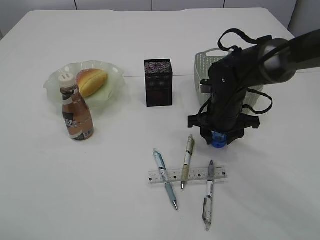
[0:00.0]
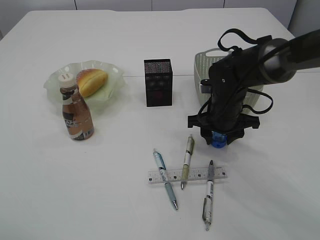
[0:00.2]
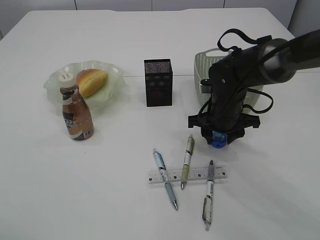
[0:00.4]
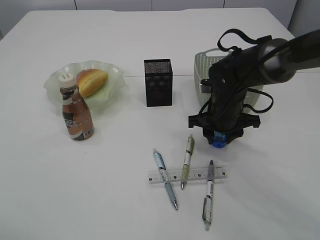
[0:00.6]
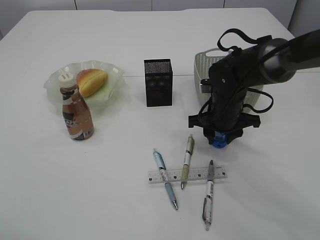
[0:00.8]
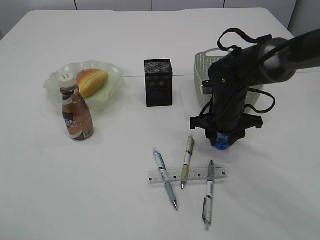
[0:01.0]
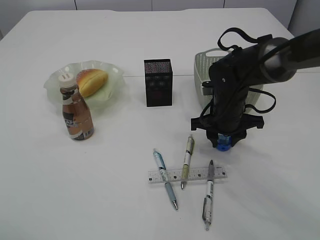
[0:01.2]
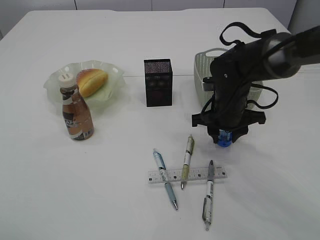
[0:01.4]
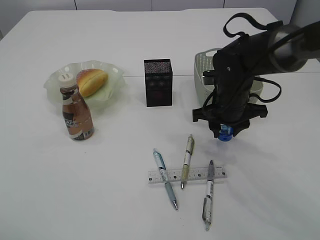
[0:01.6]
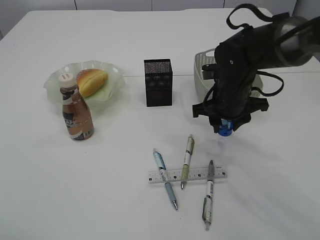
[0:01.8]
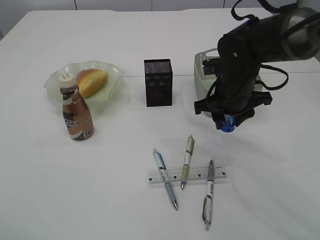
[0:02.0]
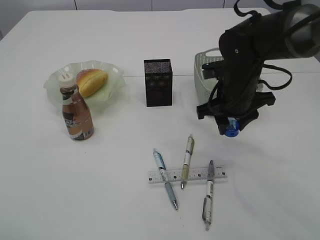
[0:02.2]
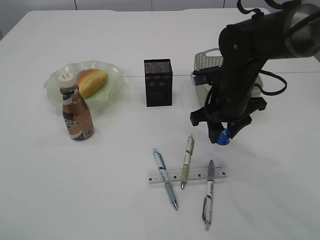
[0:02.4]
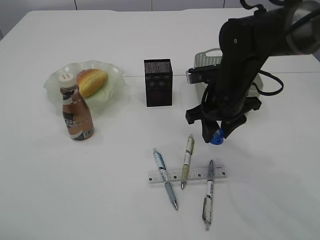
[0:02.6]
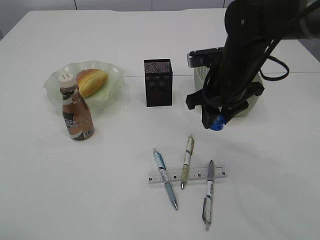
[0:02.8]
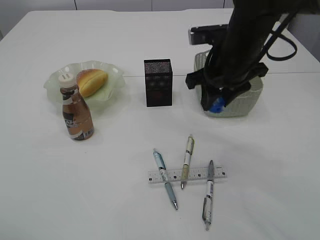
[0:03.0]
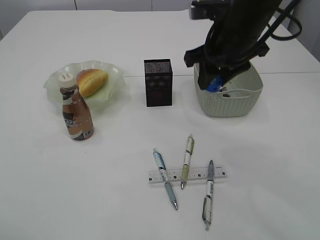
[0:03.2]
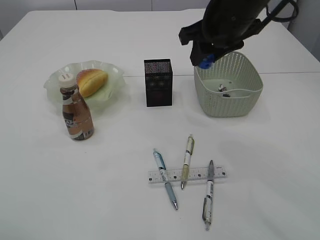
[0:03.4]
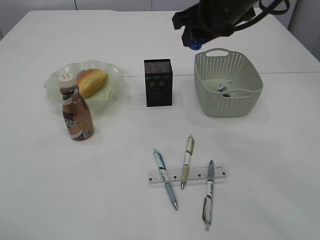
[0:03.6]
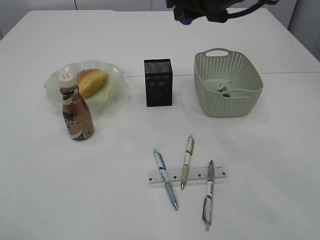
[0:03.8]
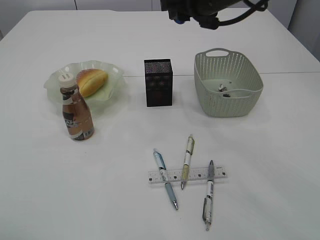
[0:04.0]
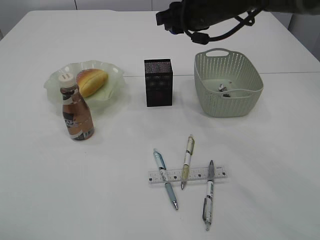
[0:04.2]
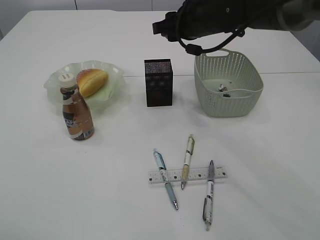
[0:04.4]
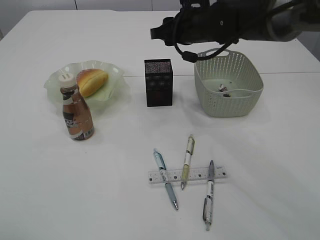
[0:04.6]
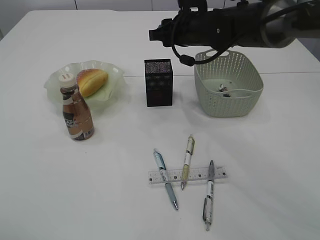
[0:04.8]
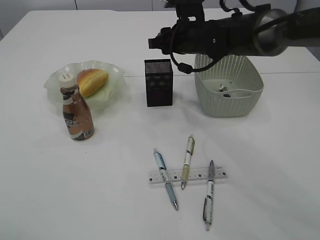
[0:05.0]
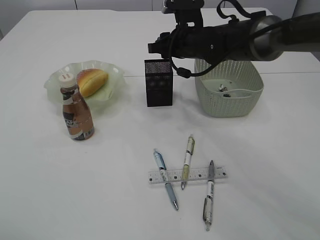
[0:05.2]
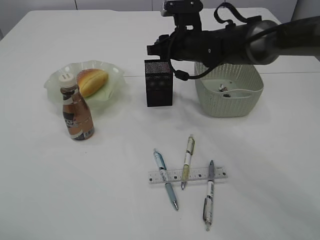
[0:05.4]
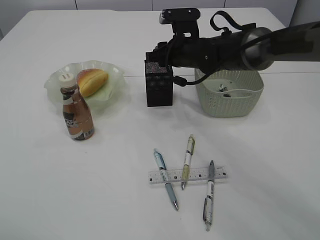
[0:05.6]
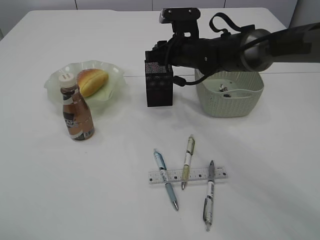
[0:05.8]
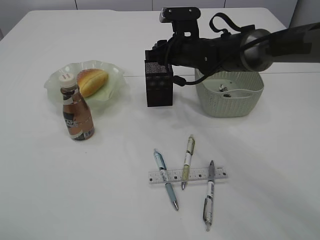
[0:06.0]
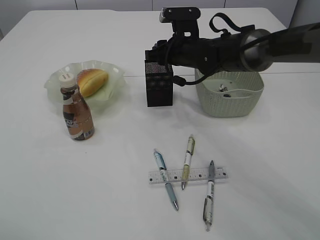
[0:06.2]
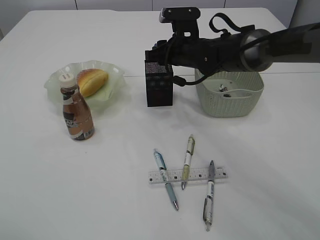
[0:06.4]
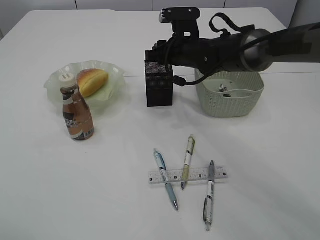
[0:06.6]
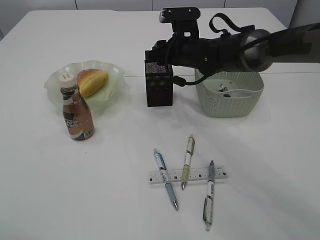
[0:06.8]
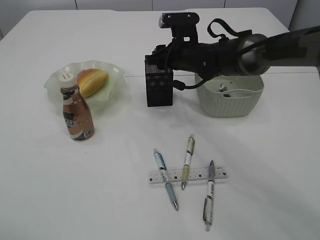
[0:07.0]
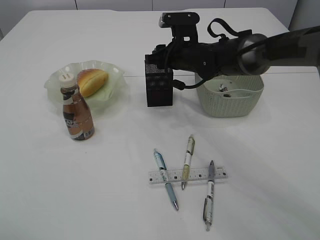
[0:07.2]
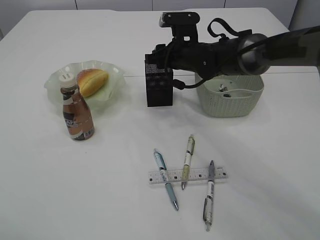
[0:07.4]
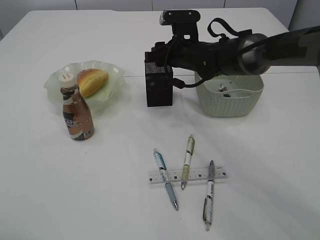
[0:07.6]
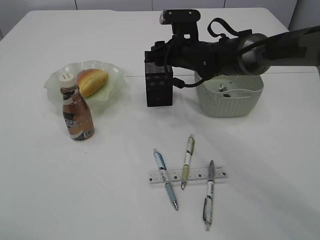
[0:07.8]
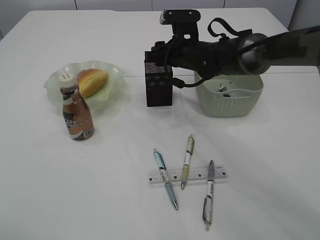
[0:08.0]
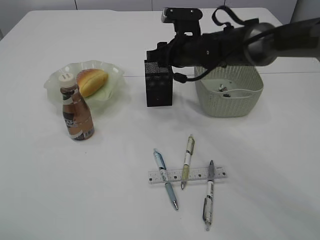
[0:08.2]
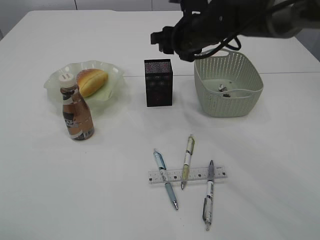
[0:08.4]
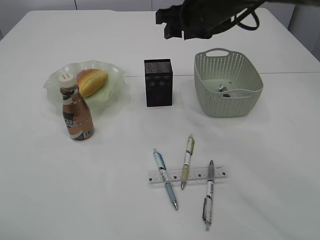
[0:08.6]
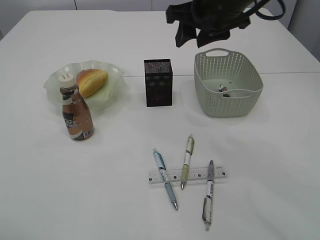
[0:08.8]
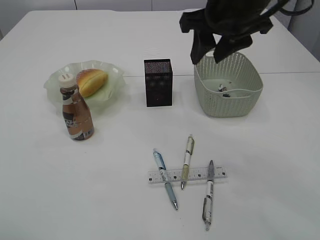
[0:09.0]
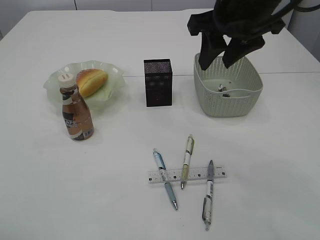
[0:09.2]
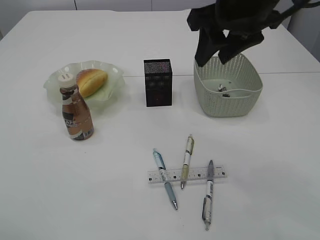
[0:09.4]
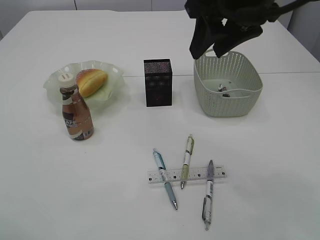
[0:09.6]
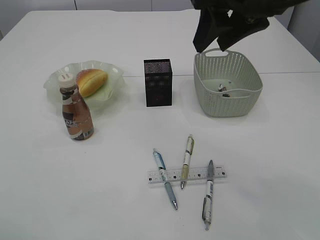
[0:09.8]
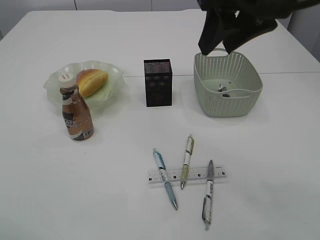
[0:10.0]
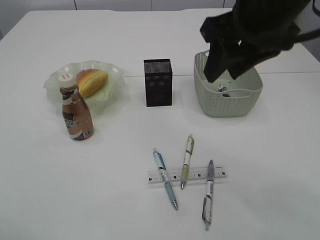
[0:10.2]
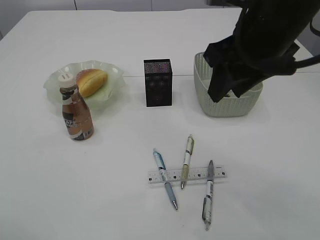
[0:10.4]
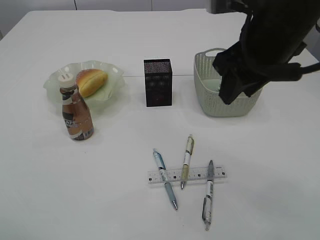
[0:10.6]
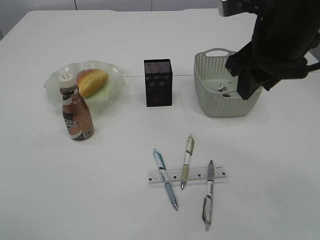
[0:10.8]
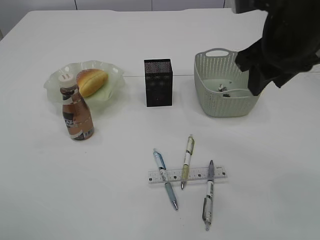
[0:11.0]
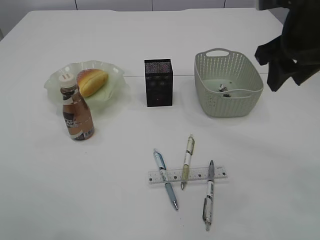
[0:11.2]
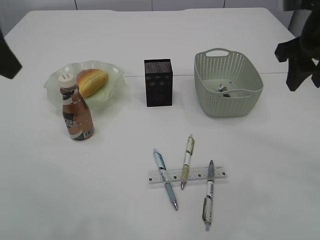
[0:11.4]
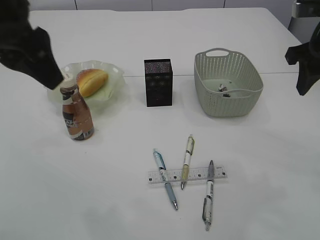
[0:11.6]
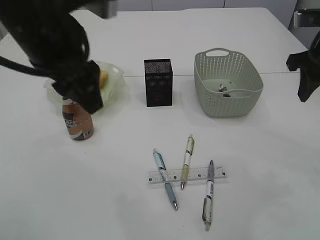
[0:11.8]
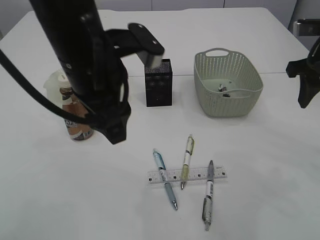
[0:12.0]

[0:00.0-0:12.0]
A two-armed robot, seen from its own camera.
Step, 0:00.0 to 0:02.0: Pick up the blue pencil sharpener.
Step, 0:02.2 to 0:08.6: Place the blue pencil sharpener into the pen holder.
0:00.0 to 0:01.6: The grippers stay close to where they were, moving slightly.
0:01.6 to 0:03.0: The right gripper heads upward, covering approximately 10 cm.
0:03.0 to 0:04.4: The right gripper shifts about 10 cm forward, and reaches about 10 cm upward, then returns.
0:04.4 to 0:06.0: The right gripper heads downward, covering some 10 cm.
0:06.0 to 0:07.6: Both grippers stay put.
0:07.6 to 0:09.0: The right gripper travels upward and backward by some 20 cm.
0:09.0 to 0:10.4: The right gripper moves backward, some 5 cm.
0:10.4 to 0:12.0: The left gripper travels to the right and forward by some 20 cm; the right gripper shifts approximately 15 cm to the right.

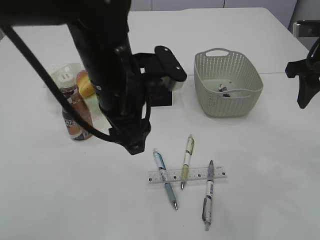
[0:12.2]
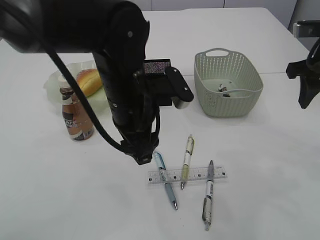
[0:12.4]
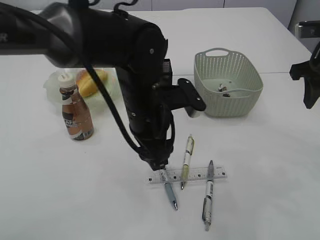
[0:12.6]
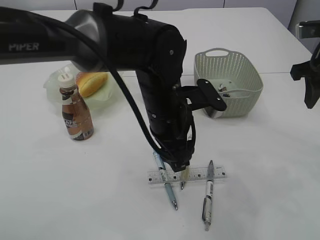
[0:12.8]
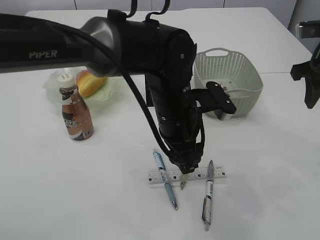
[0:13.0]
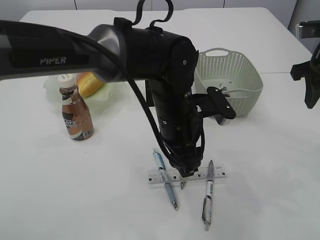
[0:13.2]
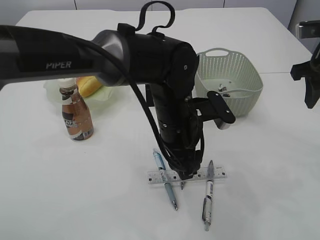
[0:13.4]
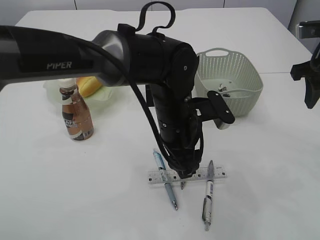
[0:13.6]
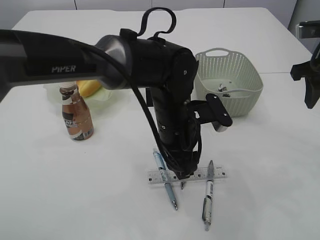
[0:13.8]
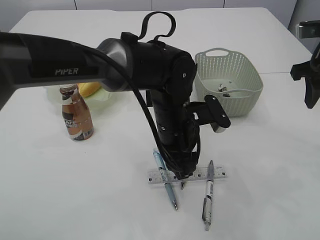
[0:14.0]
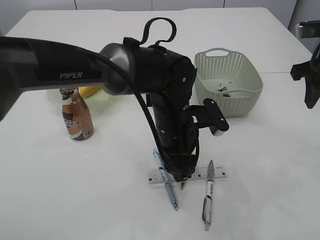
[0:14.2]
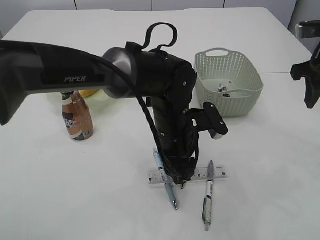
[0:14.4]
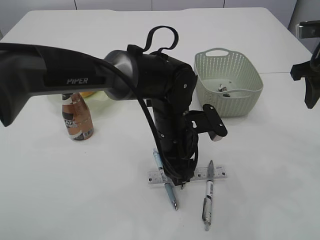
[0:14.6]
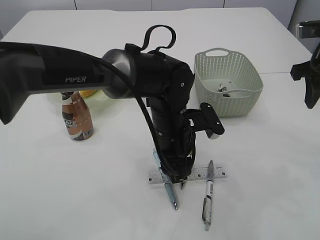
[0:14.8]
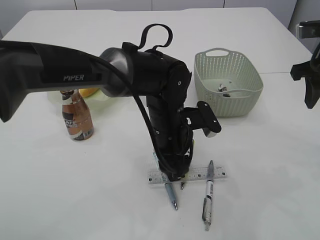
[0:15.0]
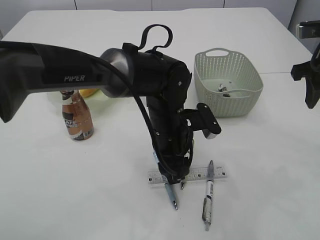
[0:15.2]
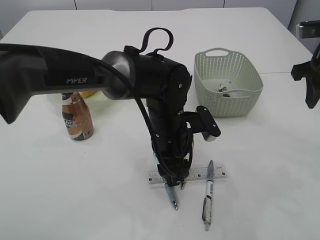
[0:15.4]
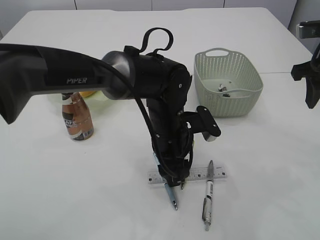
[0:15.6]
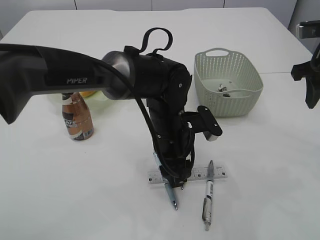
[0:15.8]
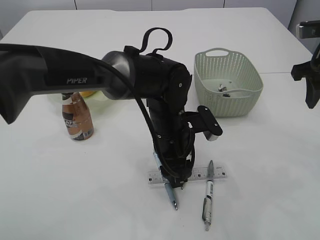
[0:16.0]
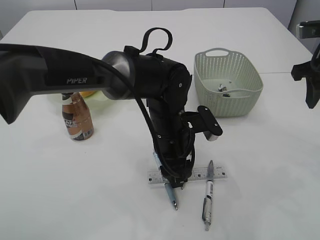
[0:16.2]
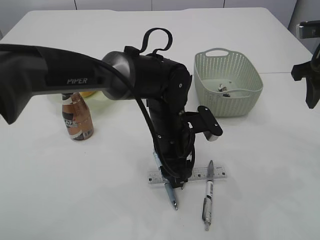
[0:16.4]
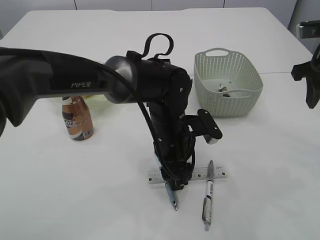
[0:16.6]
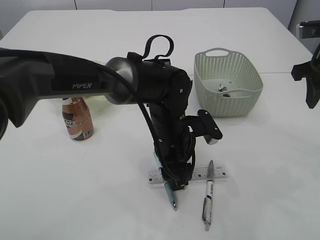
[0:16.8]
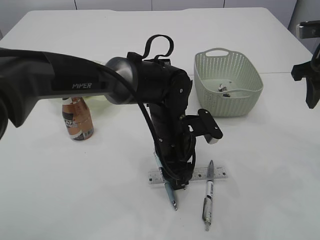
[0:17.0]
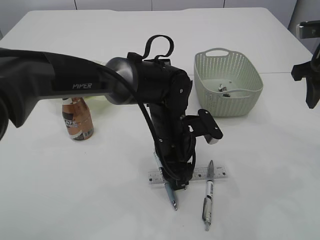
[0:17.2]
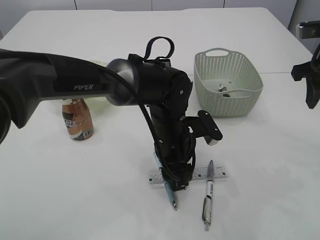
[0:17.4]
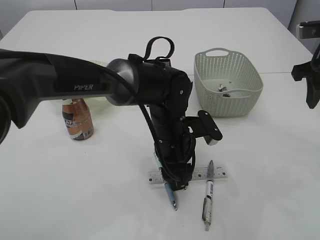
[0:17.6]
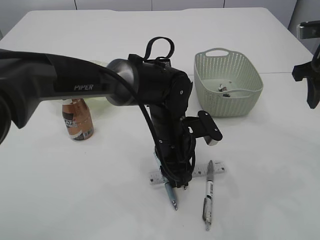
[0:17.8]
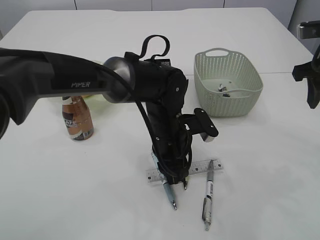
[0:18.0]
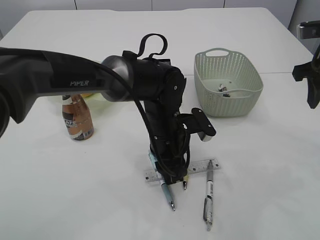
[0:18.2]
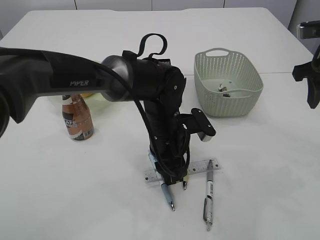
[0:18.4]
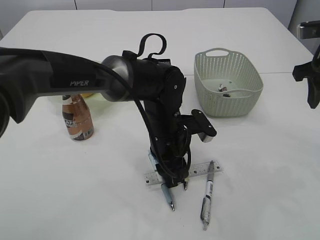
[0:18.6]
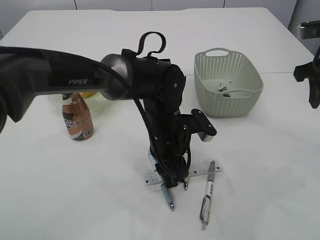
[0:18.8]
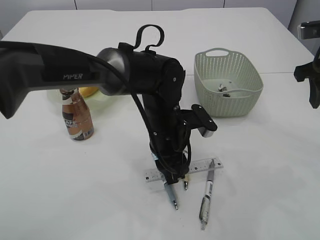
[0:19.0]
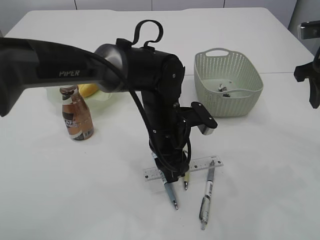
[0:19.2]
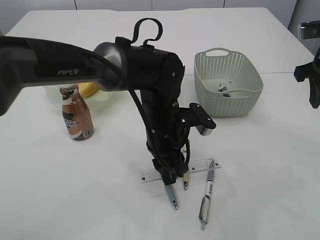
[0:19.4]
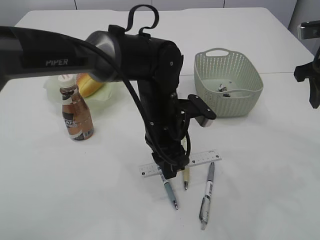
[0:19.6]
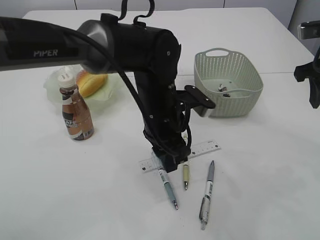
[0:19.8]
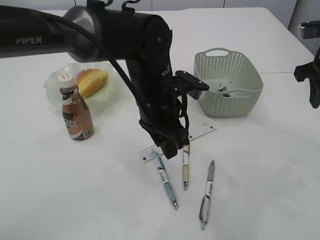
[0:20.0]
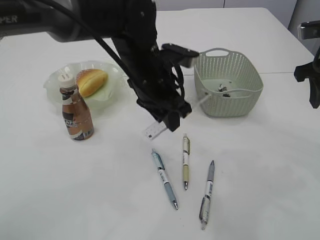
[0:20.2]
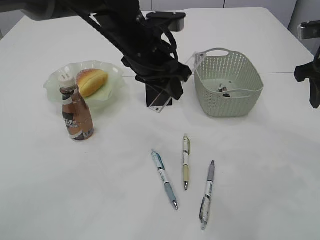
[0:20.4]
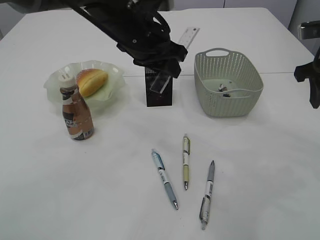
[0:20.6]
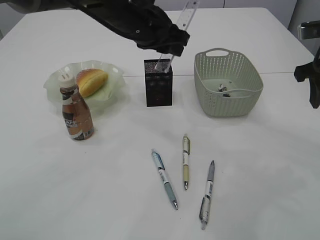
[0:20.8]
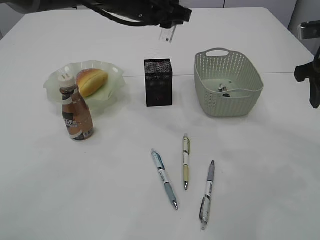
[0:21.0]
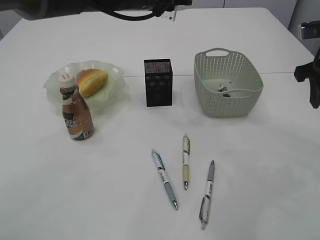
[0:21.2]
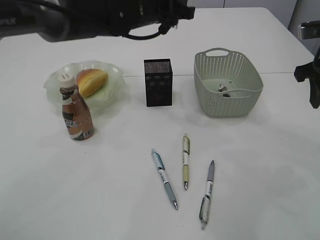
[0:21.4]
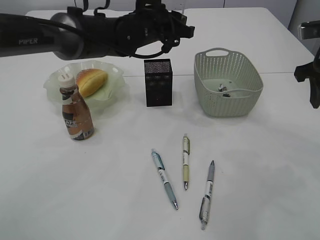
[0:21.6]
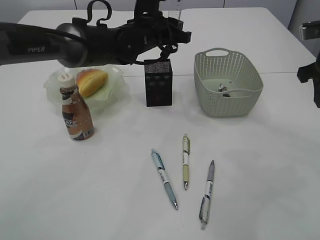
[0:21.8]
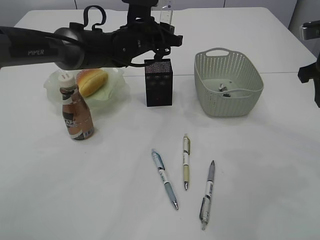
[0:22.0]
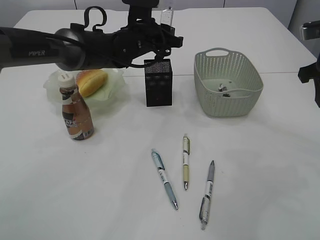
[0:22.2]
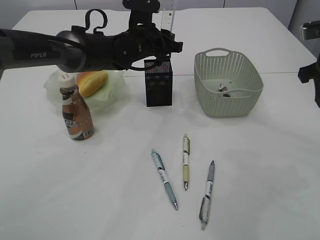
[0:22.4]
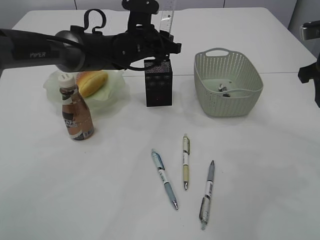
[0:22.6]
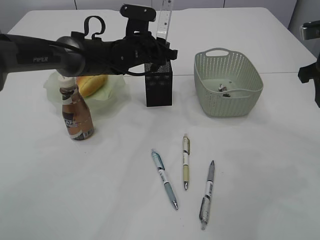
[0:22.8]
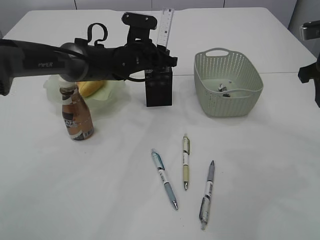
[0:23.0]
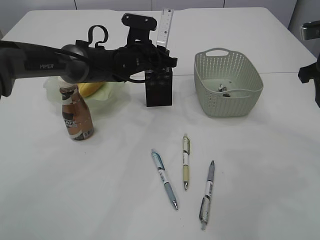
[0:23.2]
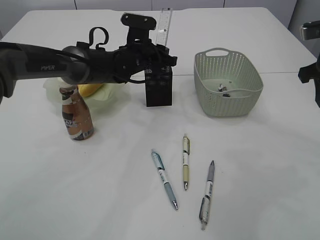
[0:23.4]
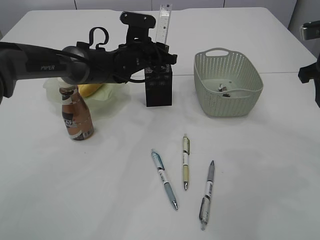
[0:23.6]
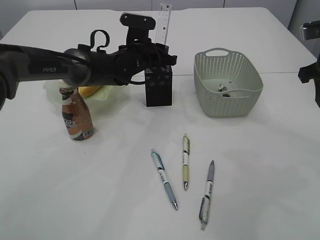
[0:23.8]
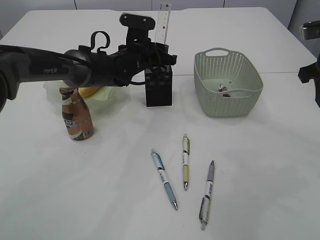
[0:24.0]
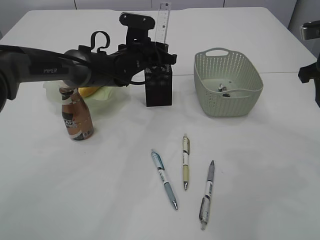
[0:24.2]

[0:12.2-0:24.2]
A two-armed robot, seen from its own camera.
Step, 0:12.2 to 0:19.8: pick up the ruler.
0:12.2 to 0:13.8: The left gripper is displaced downward and to the right by about 15 cm.
0:13.8 to 0:15.2: The grippers stay close to where they were, moving slightly.
0:15.2 to 0:16.6: The two grippers keep their place.
0:16.6 to 0:18.2: The left gripper closes its fingers.
0:18.2 to 0:19.8: The left gripper travels upward by some 5 cm.
0:19.8 to 0:21.2: The left gripper travels upward and forward by roughly 20 cm.
0:21.2 to 0:22.6: The left gripper heads downward, covering about 10 cm.
0:22.6 to 0:24.2: The grippers make only small movements.
